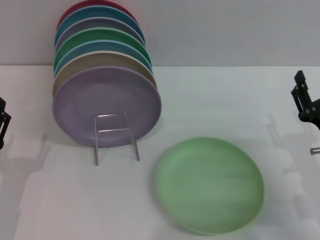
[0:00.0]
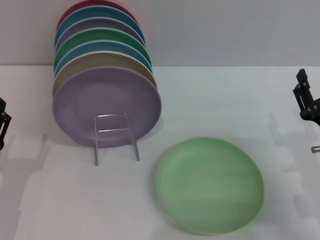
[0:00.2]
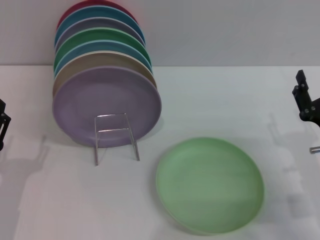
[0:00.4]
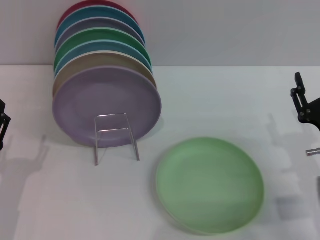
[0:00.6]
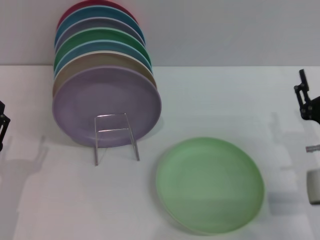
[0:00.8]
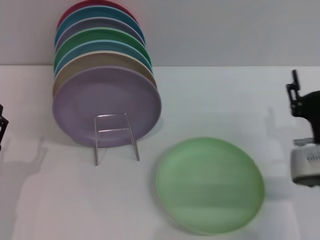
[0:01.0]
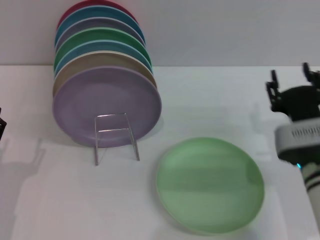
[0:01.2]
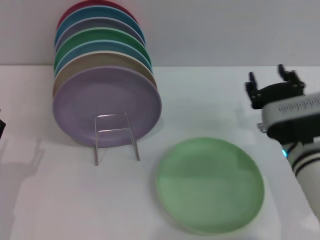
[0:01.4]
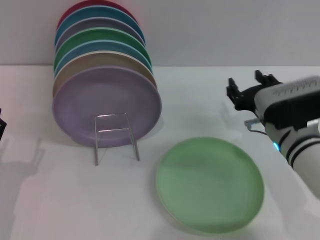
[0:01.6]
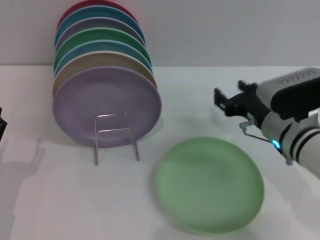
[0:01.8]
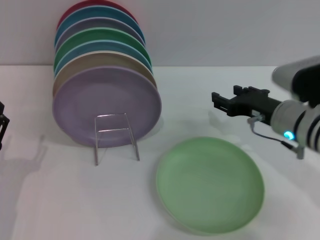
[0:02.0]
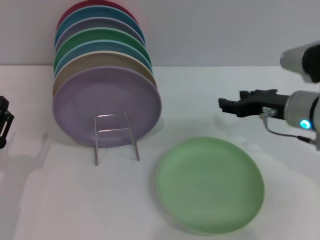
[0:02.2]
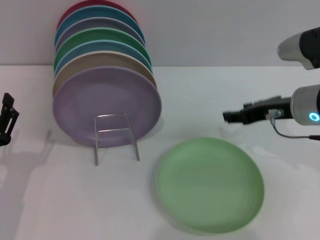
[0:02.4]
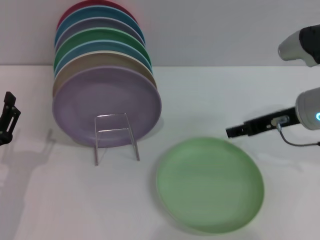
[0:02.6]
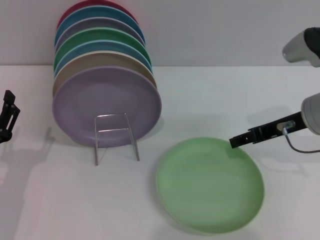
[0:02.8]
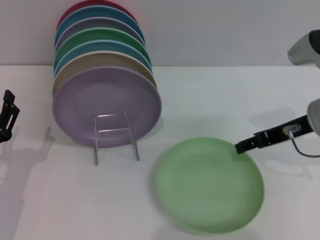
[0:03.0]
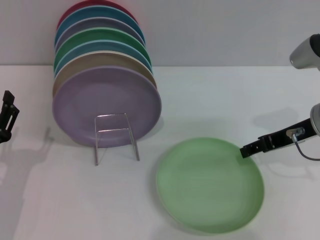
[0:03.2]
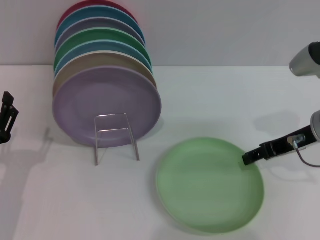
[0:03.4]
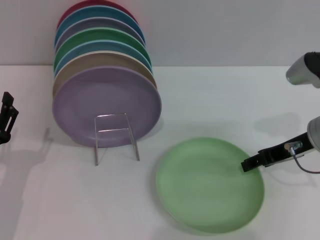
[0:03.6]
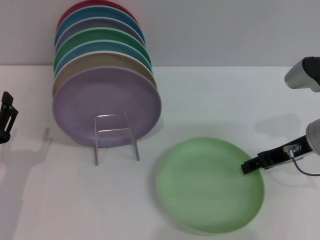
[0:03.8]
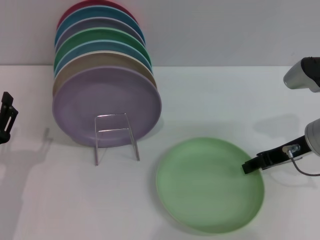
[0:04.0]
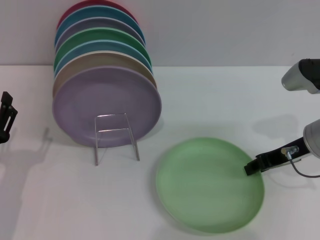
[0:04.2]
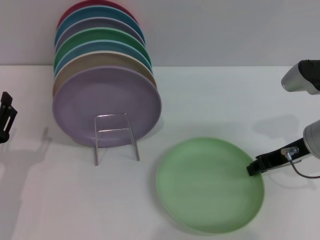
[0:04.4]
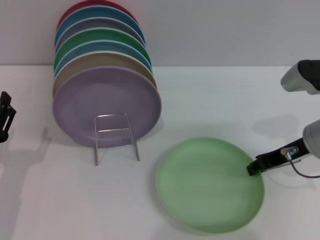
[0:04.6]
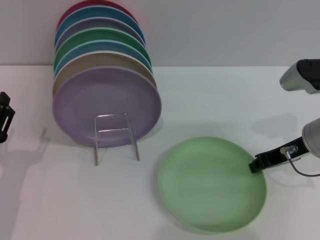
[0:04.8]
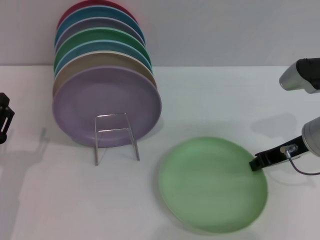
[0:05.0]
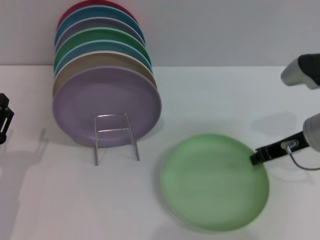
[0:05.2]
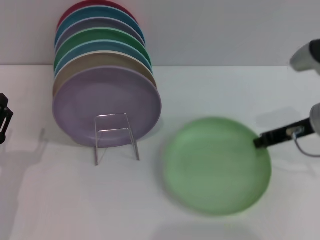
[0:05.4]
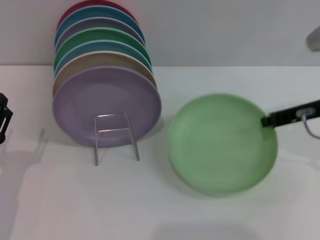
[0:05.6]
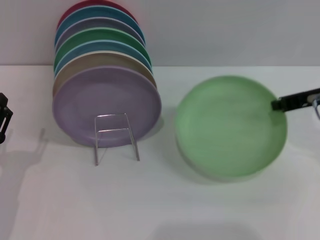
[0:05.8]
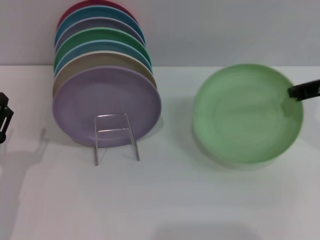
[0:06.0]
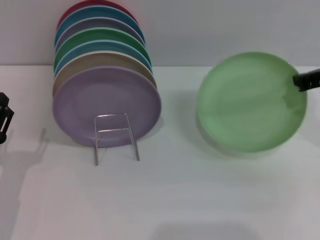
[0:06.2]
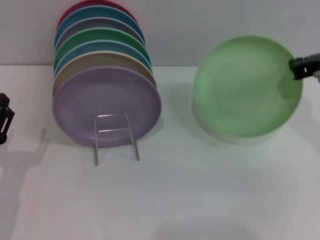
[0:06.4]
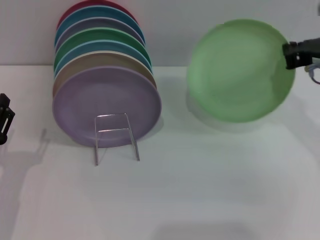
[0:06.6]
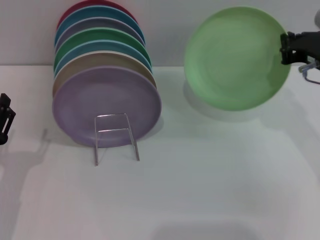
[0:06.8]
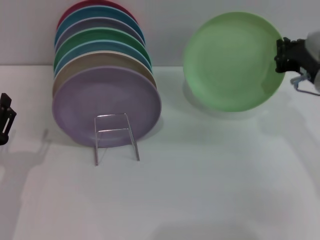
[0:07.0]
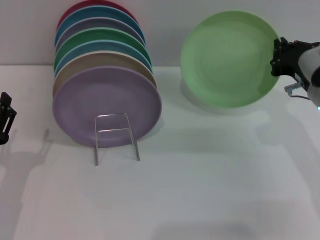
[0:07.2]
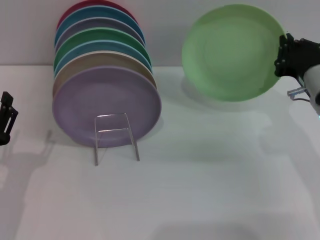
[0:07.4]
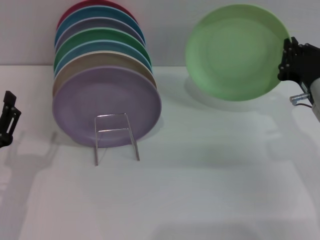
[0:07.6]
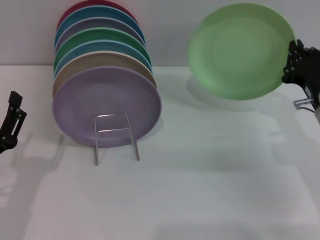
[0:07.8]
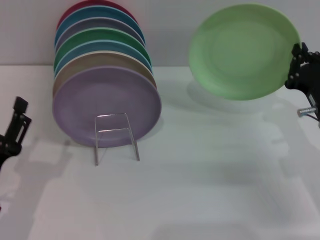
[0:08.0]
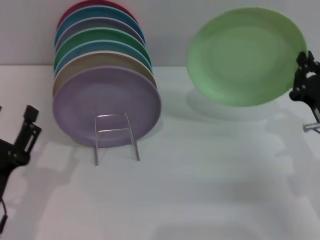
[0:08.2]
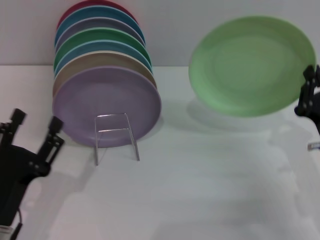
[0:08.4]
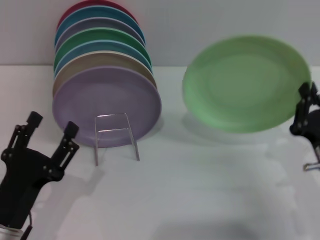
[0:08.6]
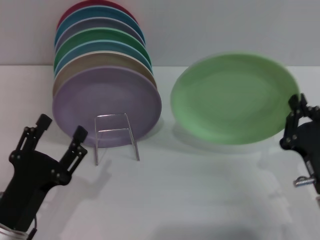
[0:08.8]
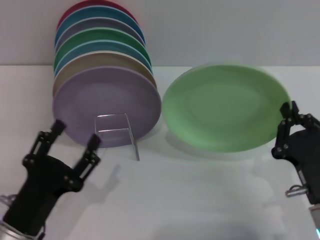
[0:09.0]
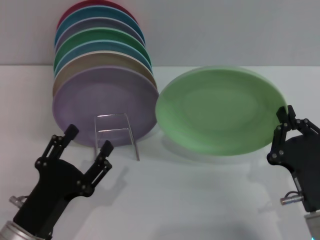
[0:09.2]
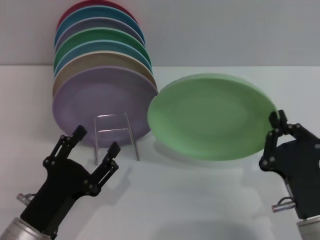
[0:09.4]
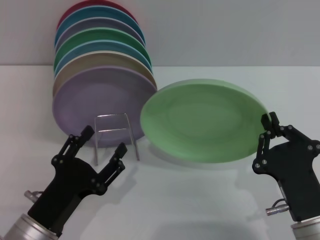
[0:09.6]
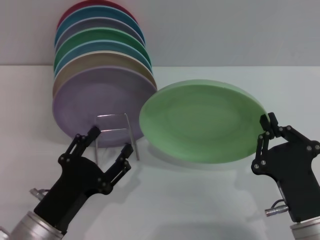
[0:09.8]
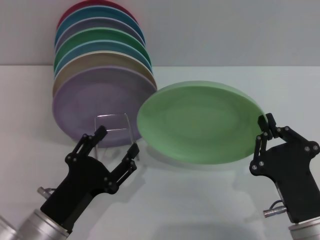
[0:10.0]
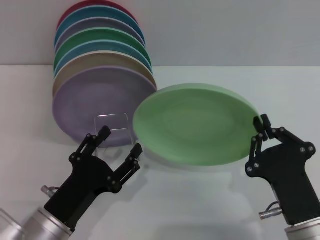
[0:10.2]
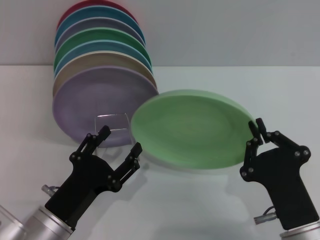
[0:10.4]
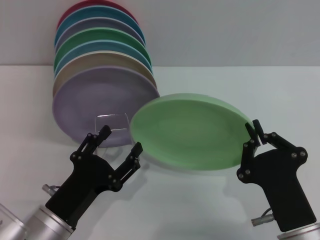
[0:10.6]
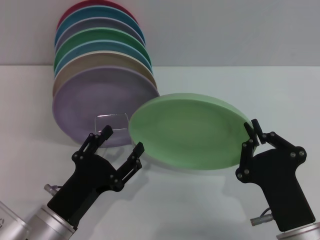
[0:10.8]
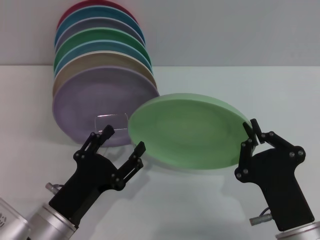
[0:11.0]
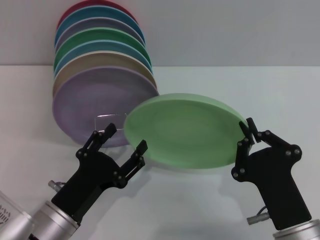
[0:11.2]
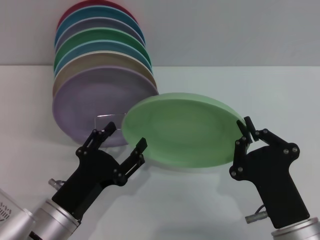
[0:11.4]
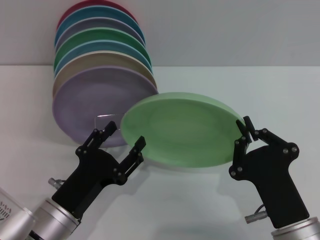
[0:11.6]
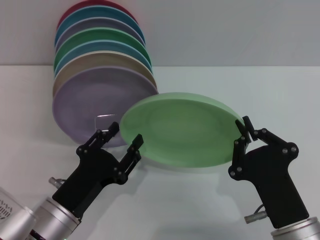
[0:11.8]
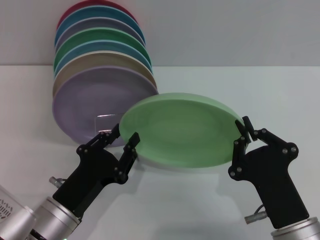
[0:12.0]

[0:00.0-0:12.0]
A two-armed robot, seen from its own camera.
Task of the whole recording: Grip the plate with one hand, pass it to the other, then set it on the shelf.
Step, 0:00.0 to 0:05.6: Pick up the plate with the right gripper.
0:00.0 to 0:01.6: The right gripper moves to the left and forward, some 10 cm.
0:01.6 to 0:03.0: The right gripper travels upward and to the right by roughly 10 cm.
0:03.0 to 0:04.4: The right gripper closes up.
0:04.4 to 0:06.0: The right gripper moves upward, roughly 10 cm, and closes up.
0:06.0 to 0:07.6: The right gripper goes about 10 cm downward.
0:07.6 to 0:09.0: The left gripper moves to the right, some 5 cm, while the right gripper travels backward and downward by some 15 cm.
0:09.0 to 0:10.4: The right gripper is displaced to the left by approximately 5 cm.
0:10.4 to 0:12.0: There are only small adjustments of the grippers.

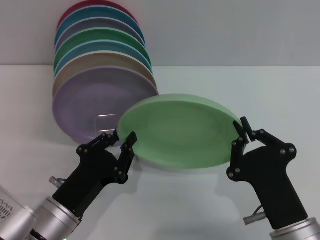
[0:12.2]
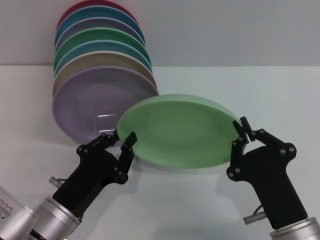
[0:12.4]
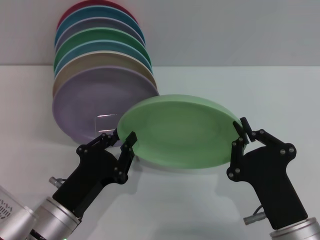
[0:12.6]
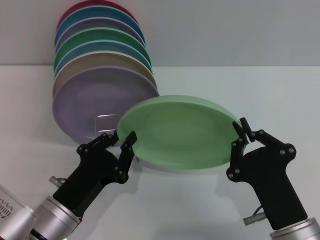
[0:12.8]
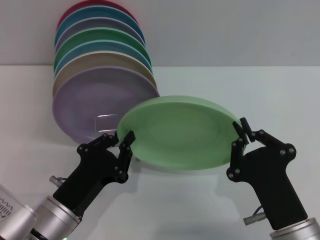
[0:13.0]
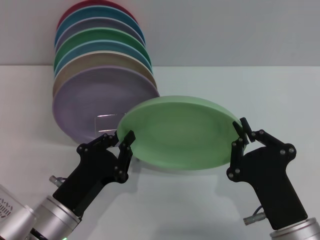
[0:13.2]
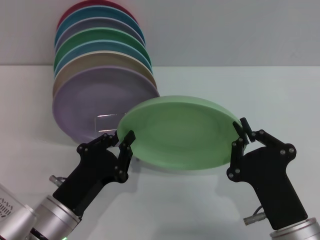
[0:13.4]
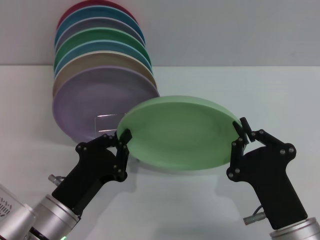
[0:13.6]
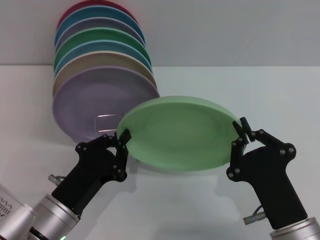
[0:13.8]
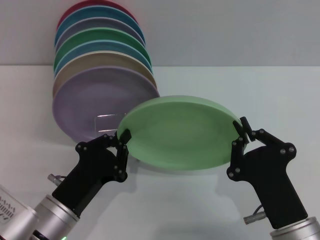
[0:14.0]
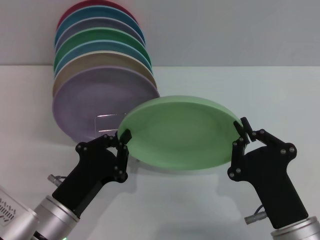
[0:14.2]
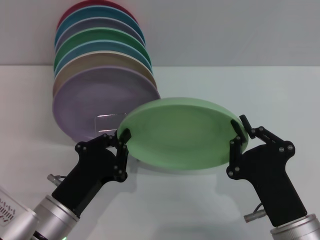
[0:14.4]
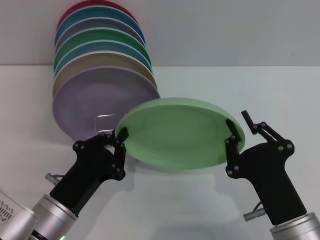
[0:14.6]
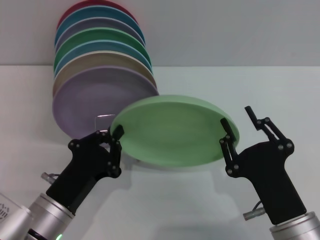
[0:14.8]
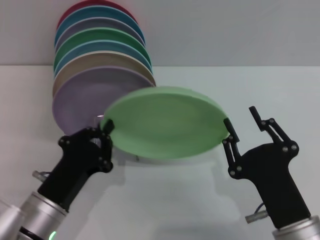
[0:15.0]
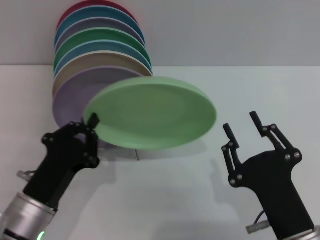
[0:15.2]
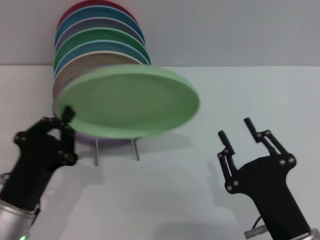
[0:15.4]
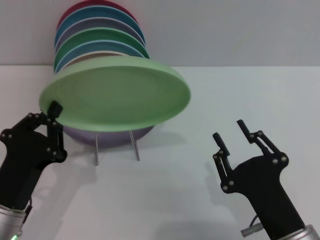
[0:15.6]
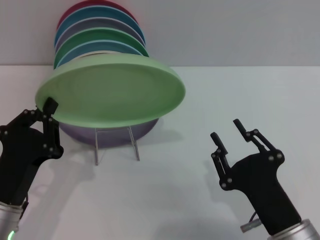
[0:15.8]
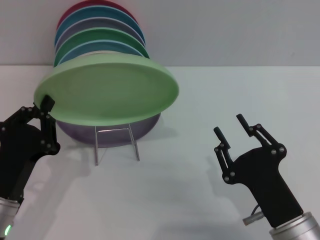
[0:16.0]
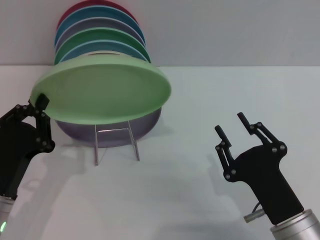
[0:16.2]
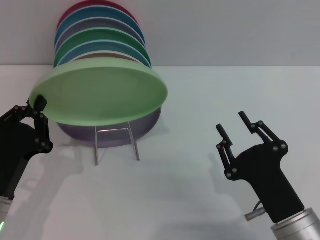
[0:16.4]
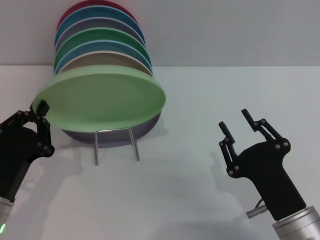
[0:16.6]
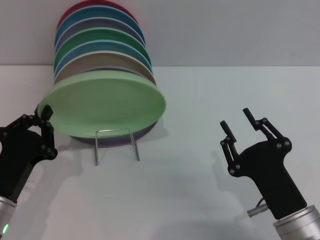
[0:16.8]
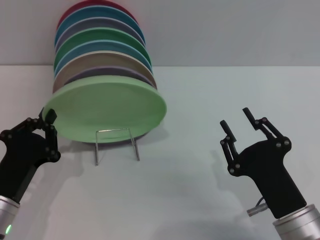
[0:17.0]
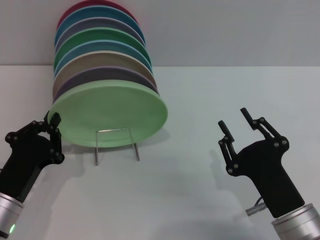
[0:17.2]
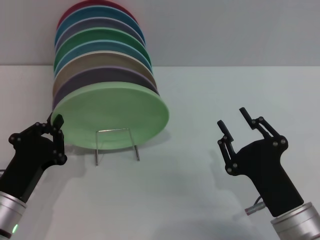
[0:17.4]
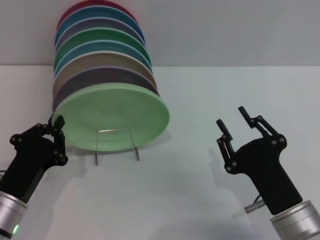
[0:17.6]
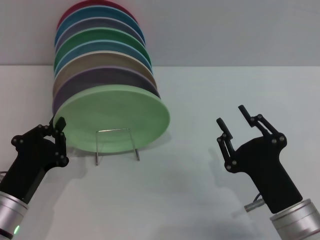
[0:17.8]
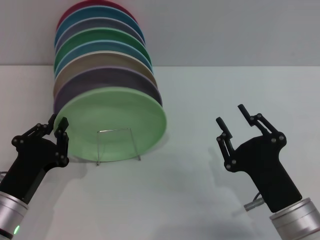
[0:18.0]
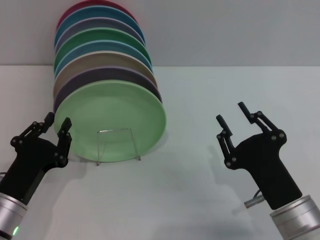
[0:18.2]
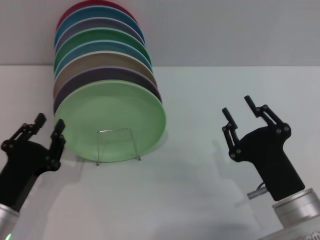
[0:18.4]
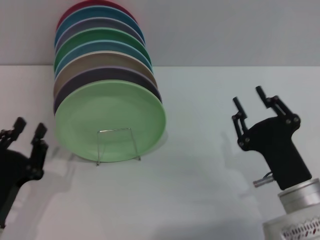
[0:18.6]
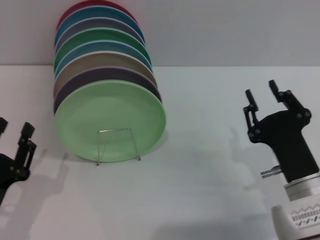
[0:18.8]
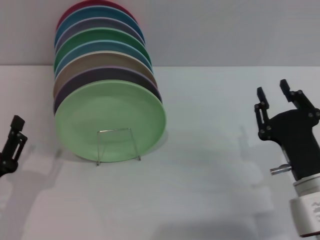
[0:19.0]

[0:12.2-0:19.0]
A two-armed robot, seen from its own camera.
Task of the whole recording: Grip the plate with one hand, pass it to the other, then set it on the shelf.
Step, 0:12.2 to 0:15.2: Pass the plate from the right gripper to the left gripper.
Step, 0:15.4 to 0:18.0: Place the plate on the shelf with the left gripper.
0:12.2 to 0:13.6: Both grippers stay put.
0:13.6 to 0:15.0: The right gripper opens.
0:15.0 to 0:16.2: The left gripper travels to the left by roughly 5 cm.
0:16.2 to 0:17.6: The grippers move only a little.
0:17.6 to 0:19.0: The right gripper ends up roughly 5 cm from where it was; the left gripper ends up approximately 5 cm from where it was, and opens its fingers.
